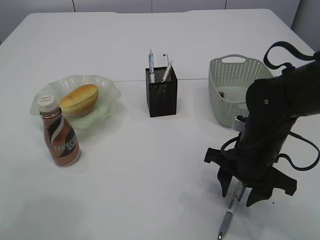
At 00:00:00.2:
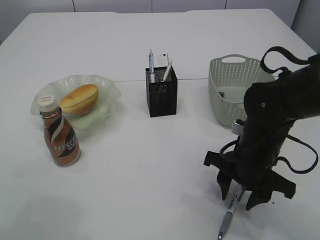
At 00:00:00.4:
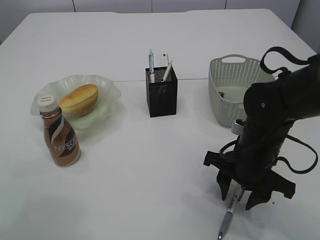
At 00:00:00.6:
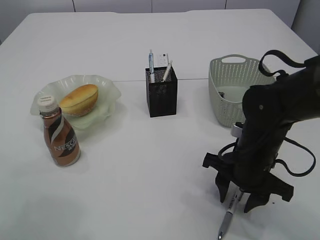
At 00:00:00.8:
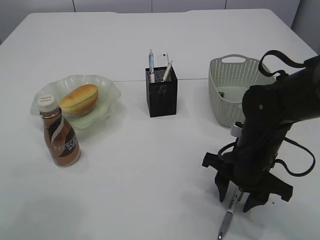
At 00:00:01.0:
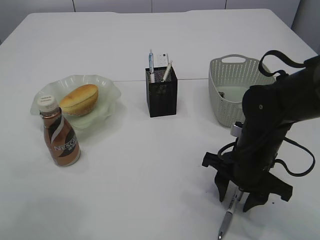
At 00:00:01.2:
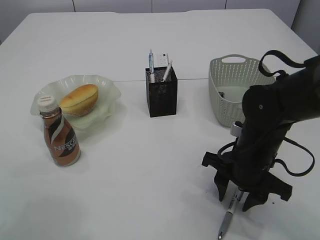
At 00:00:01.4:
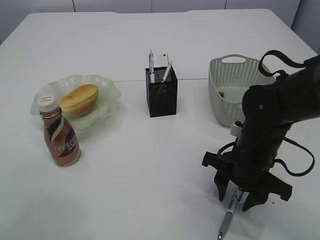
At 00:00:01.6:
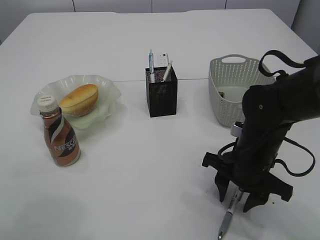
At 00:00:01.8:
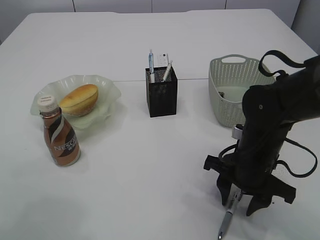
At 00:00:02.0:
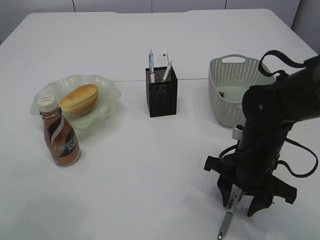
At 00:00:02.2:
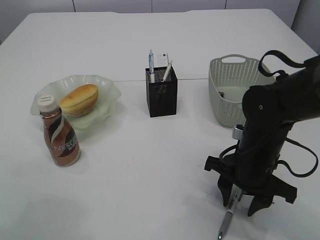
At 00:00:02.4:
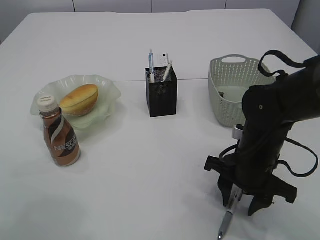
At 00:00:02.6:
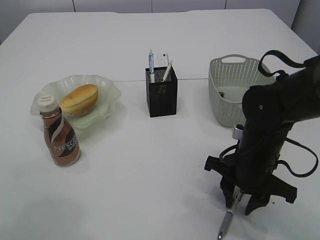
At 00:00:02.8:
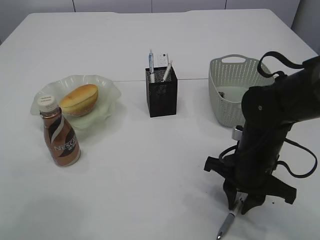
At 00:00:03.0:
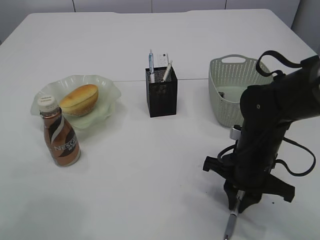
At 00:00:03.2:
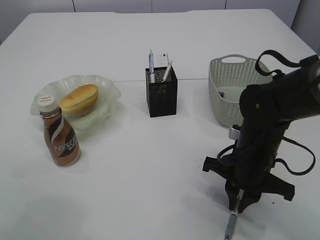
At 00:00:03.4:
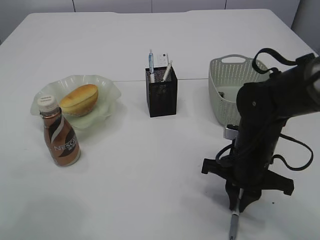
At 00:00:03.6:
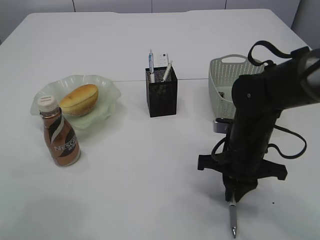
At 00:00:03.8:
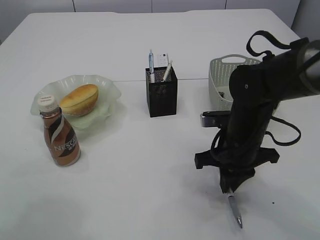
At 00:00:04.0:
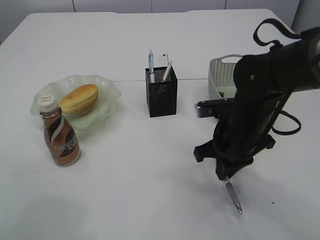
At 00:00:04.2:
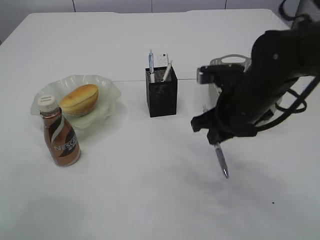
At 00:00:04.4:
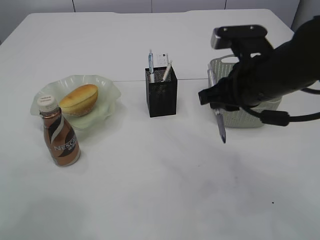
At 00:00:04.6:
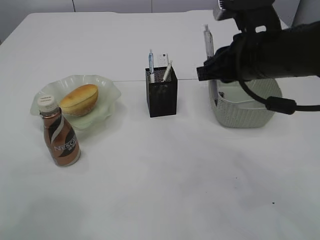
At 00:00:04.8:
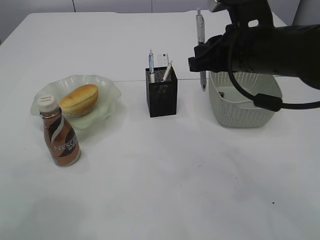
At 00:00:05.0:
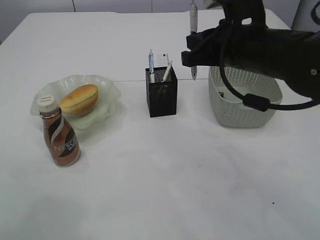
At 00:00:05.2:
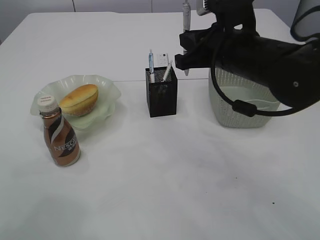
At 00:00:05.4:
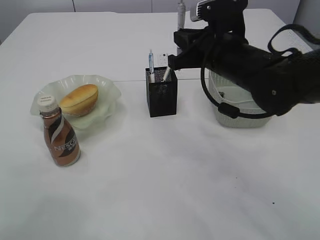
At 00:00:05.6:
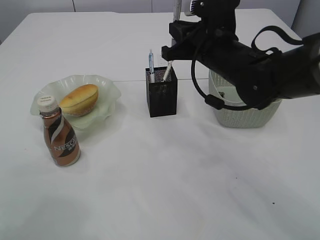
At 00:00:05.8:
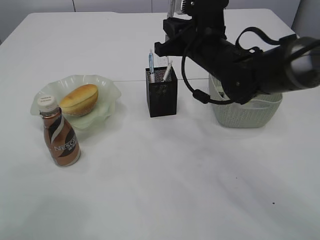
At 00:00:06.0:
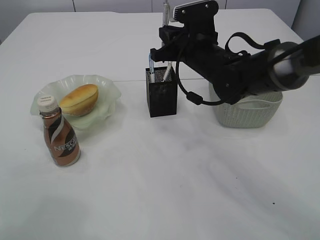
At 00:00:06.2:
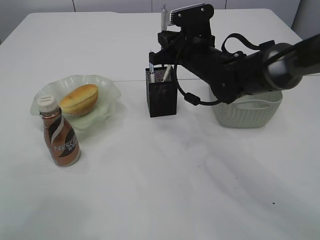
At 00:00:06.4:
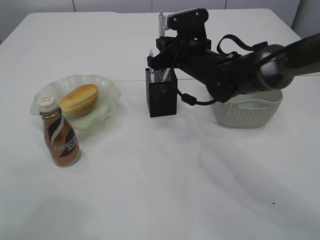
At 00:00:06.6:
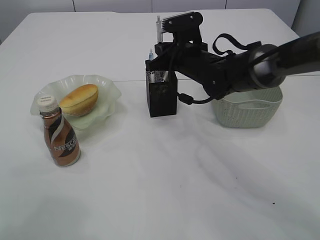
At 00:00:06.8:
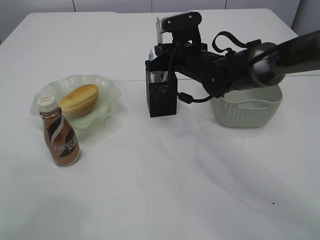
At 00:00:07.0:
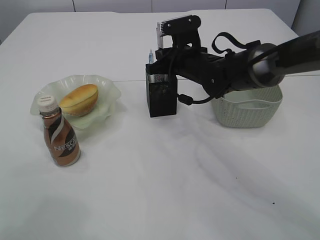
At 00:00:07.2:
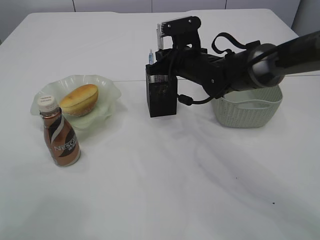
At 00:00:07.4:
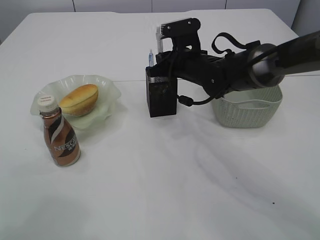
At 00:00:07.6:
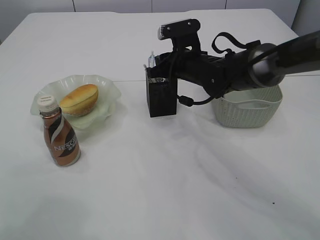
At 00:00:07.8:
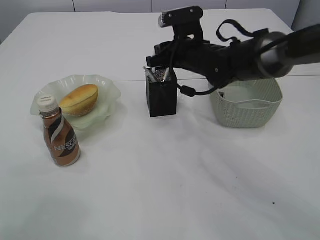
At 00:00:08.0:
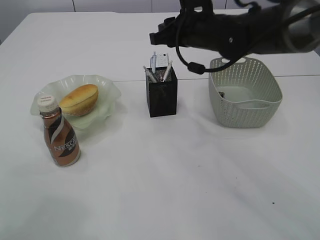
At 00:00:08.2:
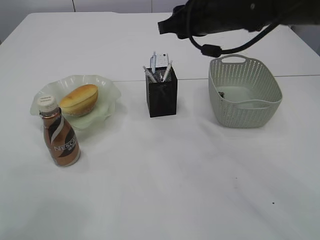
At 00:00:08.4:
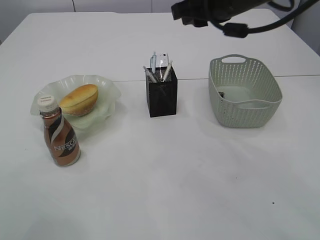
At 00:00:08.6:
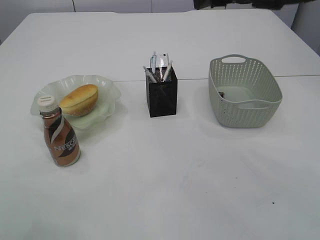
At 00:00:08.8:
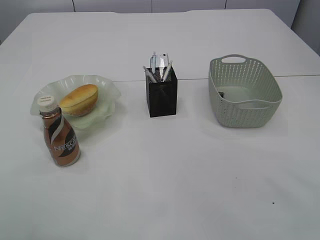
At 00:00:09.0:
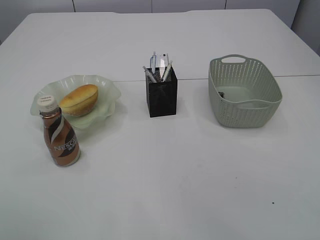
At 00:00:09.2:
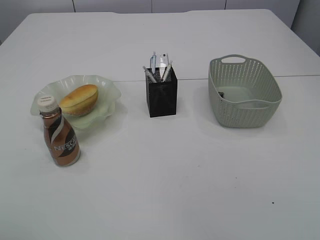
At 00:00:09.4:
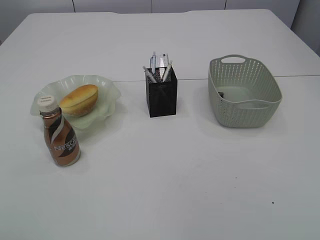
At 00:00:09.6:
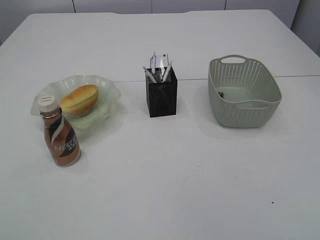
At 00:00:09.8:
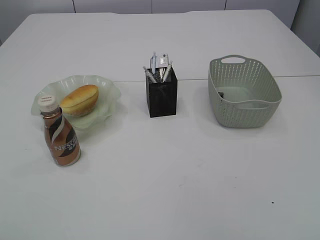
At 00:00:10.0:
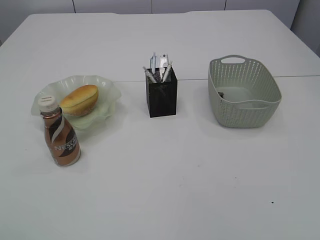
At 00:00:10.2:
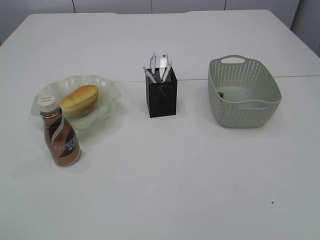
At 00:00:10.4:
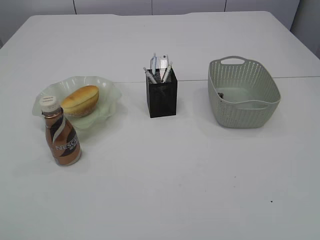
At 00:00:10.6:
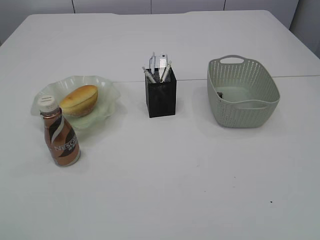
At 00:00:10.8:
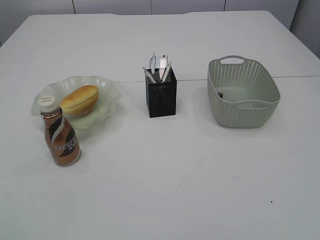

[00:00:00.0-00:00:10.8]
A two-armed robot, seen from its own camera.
Step, 00:00:00.0 to 00:00:04.2: Pick up the pen with right arm.
Step, 00:00:04.4 to 00:00:08.2: Place the pen into the pen holder.
00:00:00.0 to 00:00:01.6: Both grippers stay put.
00:00:01.6 to 00:00:03.0: The right gripper closes up.
00:00:03.0 to 00:00:04.6: The right gripper moves upward, some 15 cm.
00:00:04.6 to 00:00:06.2: The right gripper moves forward, downward and to the left, about 15 cm.
00:00:06.2 to 00:00:07.8: The right gripper opens its fingers.
00:00:07.8 to 00:00:09.2: The right gripper goes roughly 40 cm upward and backward, and opens; the left gripper shifts some 15 cm backward and upward.
00:00:09.2 to 00:00:10.8: The left gripper is displaced backward and downward by roughly 25 cm. Meanwhile the right gripper travels backward, downward and to the right by roughly 30 cm.
